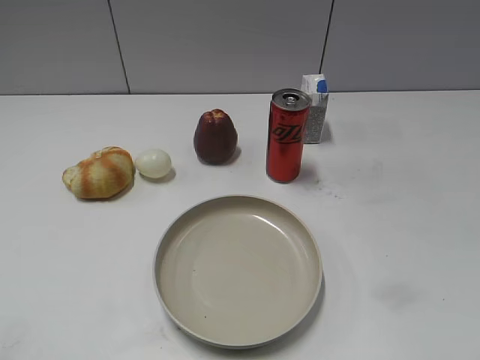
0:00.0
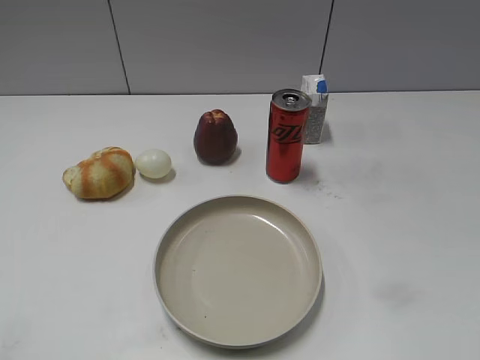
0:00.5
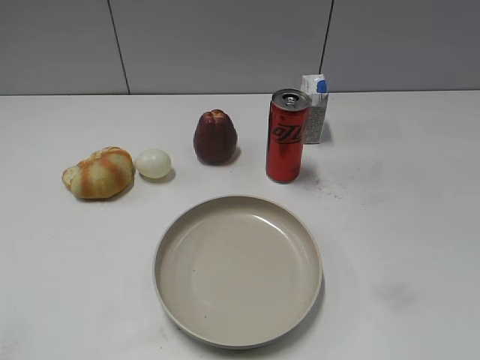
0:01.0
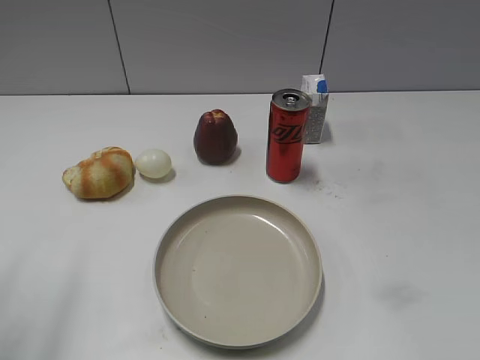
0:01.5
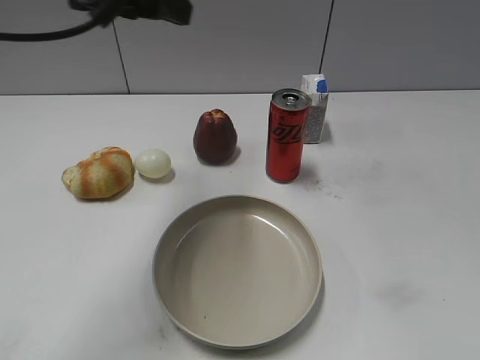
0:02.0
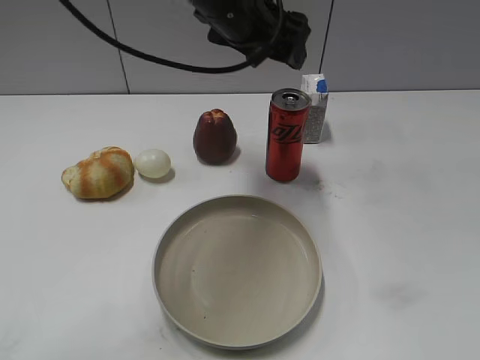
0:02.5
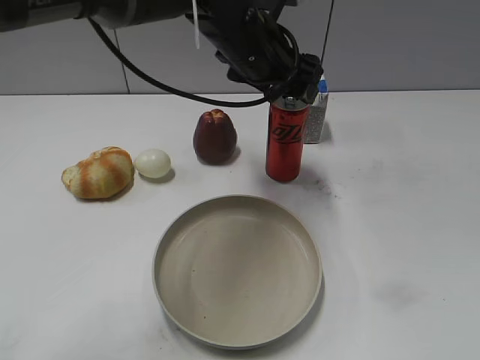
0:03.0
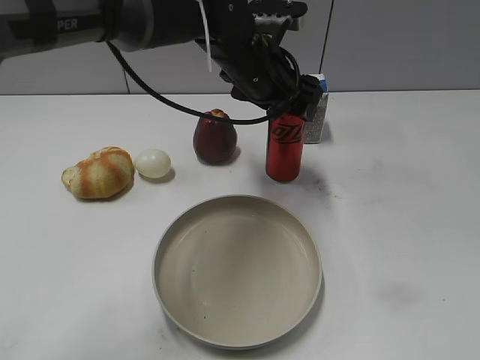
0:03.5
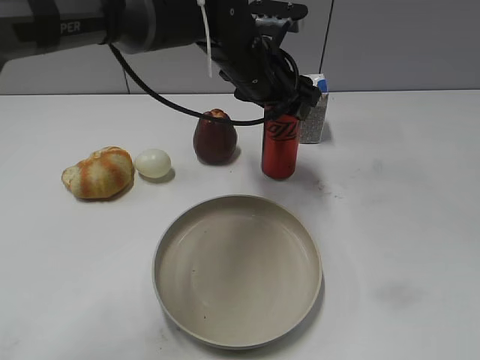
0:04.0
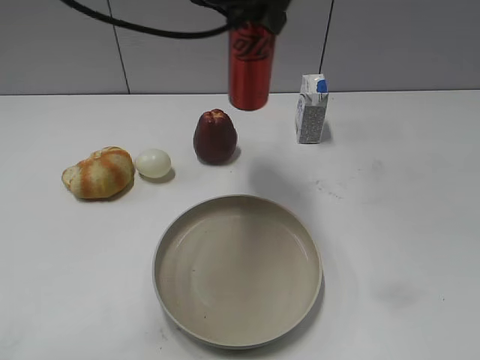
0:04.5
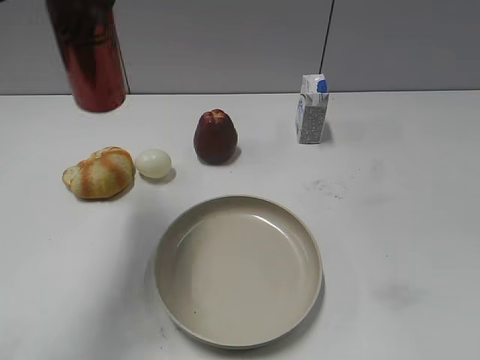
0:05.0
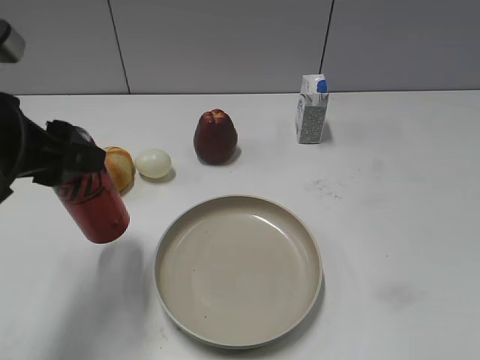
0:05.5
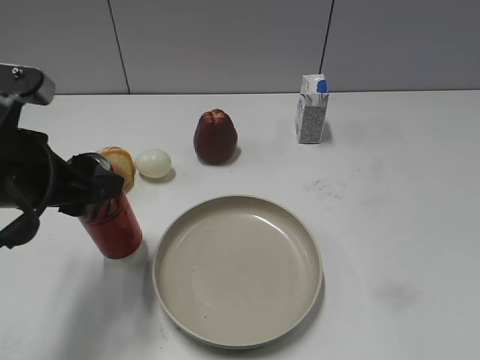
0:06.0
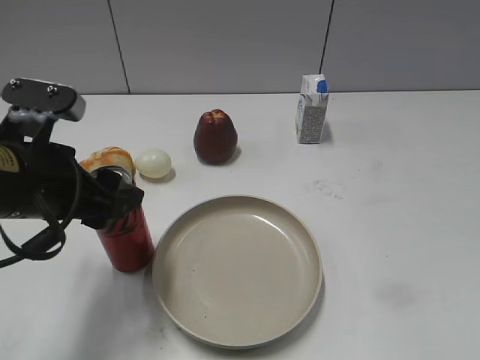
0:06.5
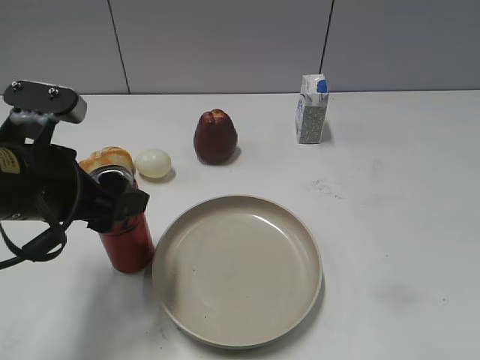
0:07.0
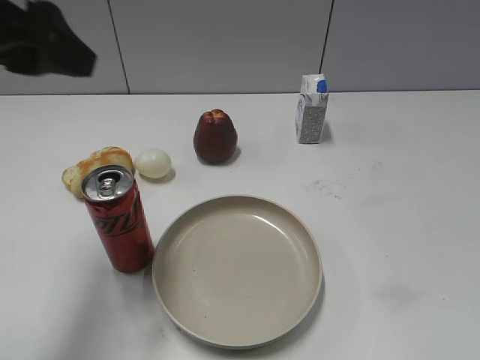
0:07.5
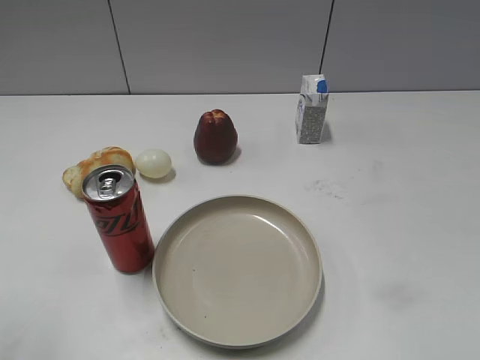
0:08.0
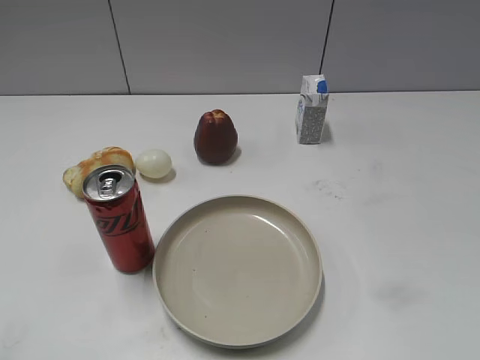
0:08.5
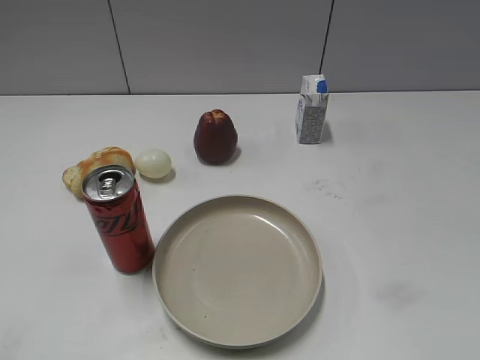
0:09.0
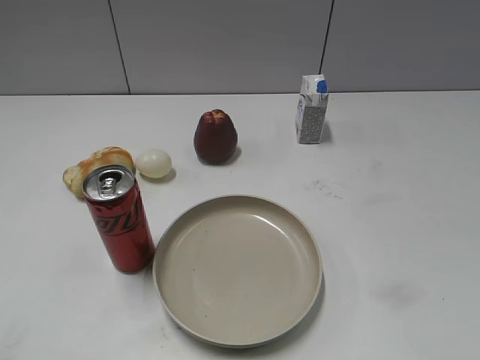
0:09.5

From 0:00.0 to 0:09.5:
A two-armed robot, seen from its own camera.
Step, from 0:00.5 to 0:03.5: Grasp the cola with left gripper.
Step, from 0:04.0 to 0:07.0: Place the cola on the table with left gripper.
From 0:02.0 to 0:04.0: The left gripper moves to the right, downward and forward, about 20 cm, and closes.
From 0:04.0 to 0:05.5: The left gripper moves to the left and backward, approximately 30 cm.
From 0:05.5 to 0:07.5: The left gripper is displaced upward by roughly 10 cm, and opens up.
From 0:07.5 to 0:09.5: The left gripper moves backward and to the left, roughly 25 cm, and closes up.

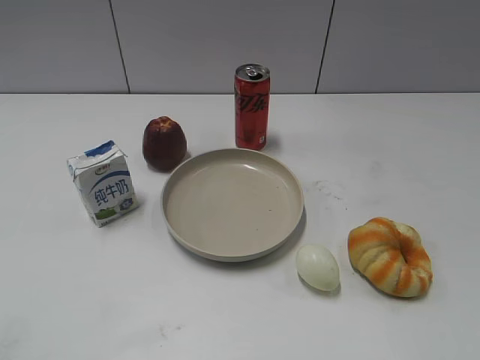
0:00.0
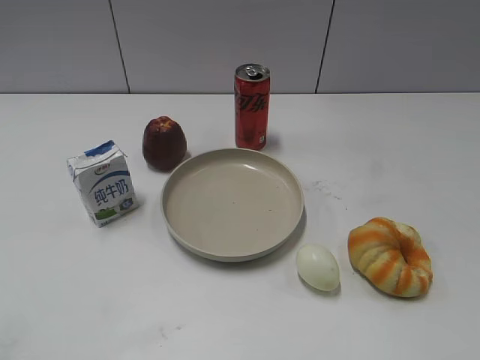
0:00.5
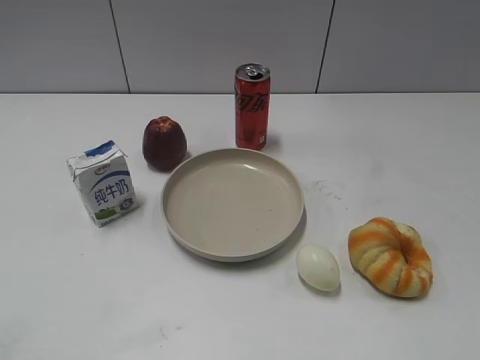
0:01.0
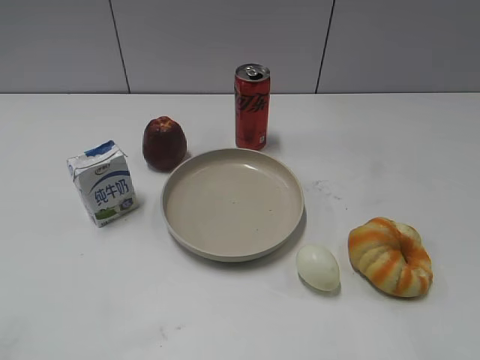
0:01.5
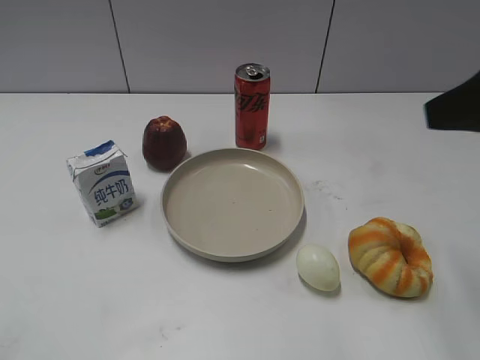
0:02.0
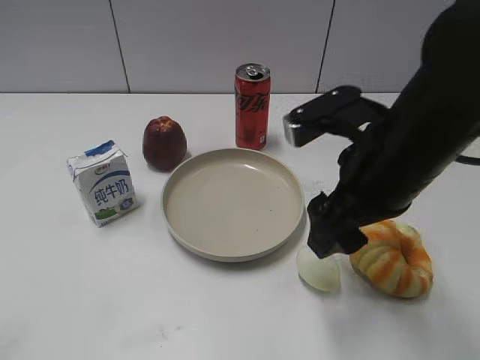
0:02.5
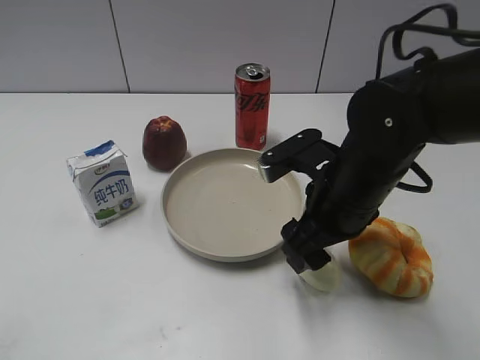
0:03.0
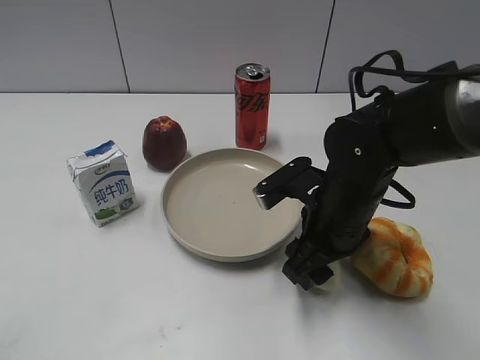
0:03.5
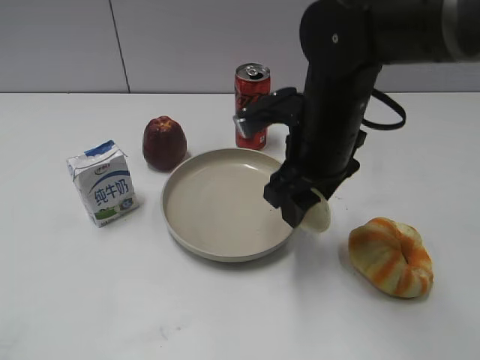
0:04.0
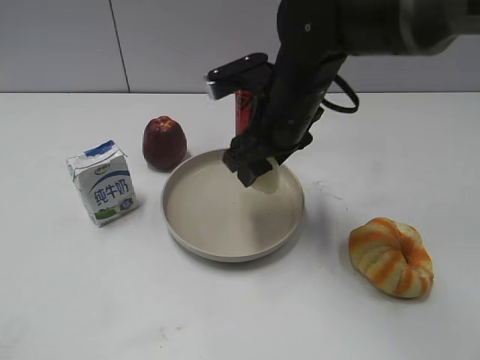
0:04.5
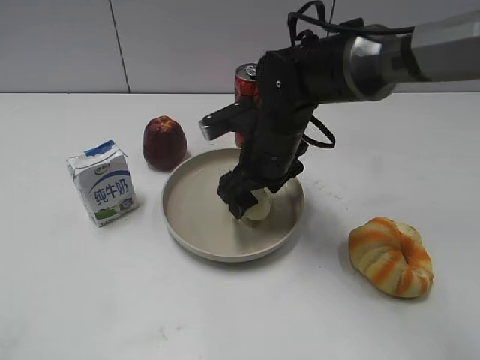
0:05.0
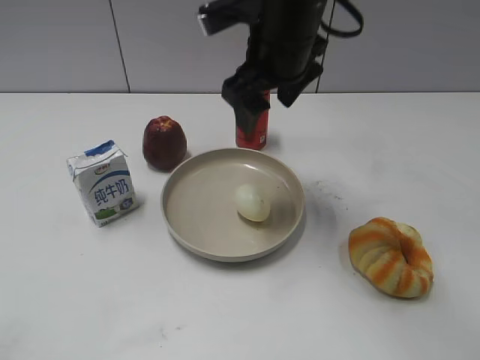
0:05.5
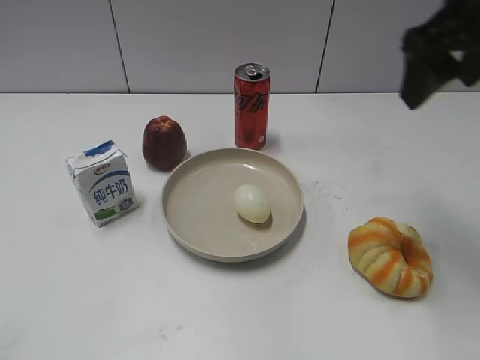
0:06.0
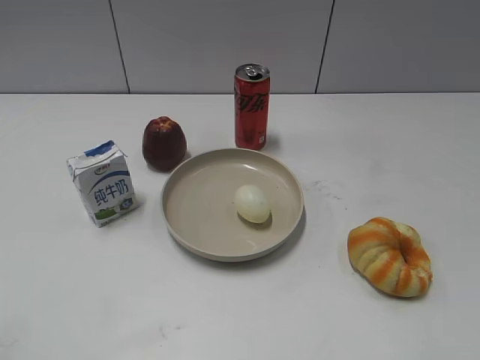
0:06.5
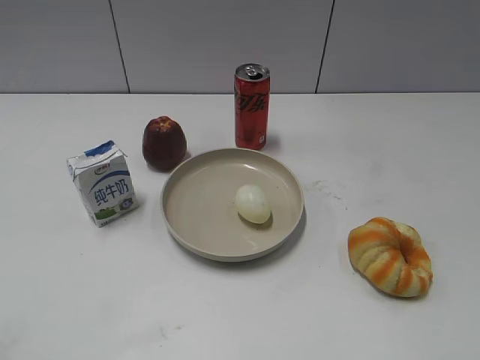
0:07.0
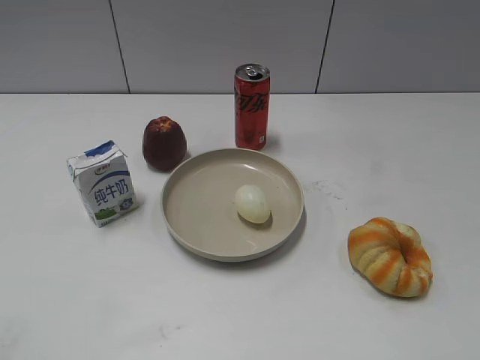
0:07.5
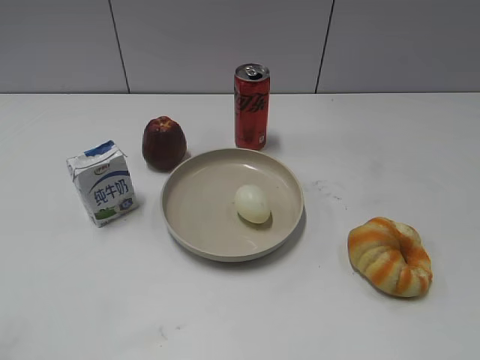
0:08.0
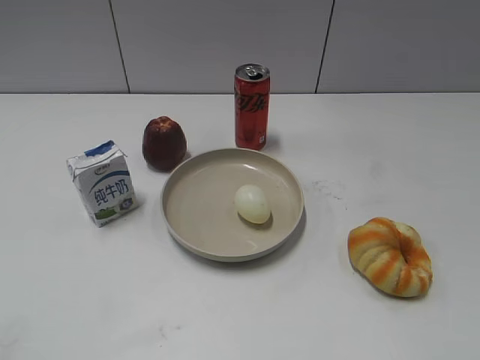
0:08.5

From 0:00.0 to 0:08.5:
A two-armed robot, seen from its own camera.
Step, from 0:01.5 to 0:03.5: Grasp the egg with right gripper.
Step, from 0:04.0 to 0:05.0: Place the egg on the plate with right gripper.
From 0:02.0 to 0:04.0: The right gripper shifts approximately 25 cm to the left, downward and forward, and closes.
From 0:04.0 to 0:06.5: The right gripper is displaced to the right, backward and upward by approximately 30 cm, and opens.

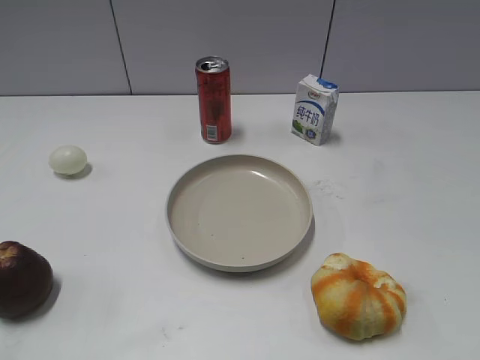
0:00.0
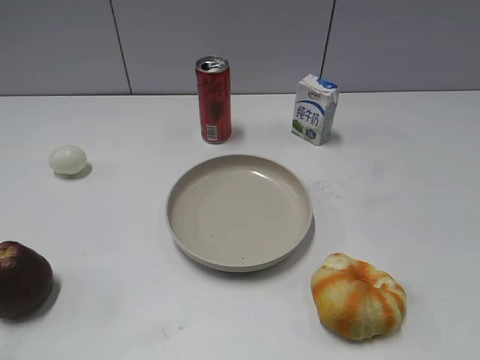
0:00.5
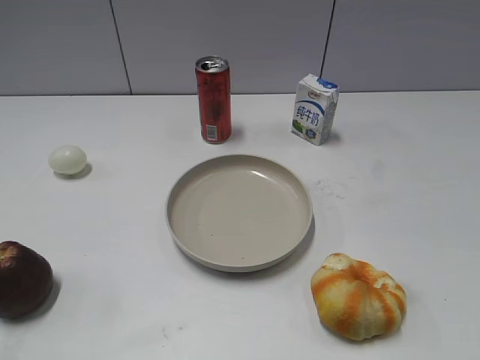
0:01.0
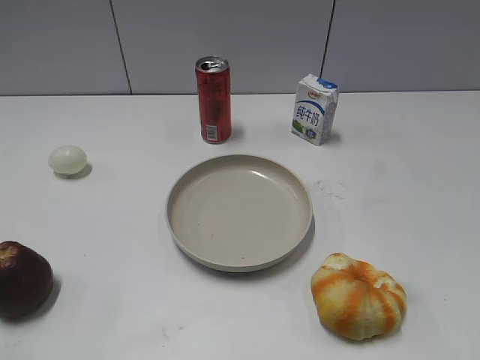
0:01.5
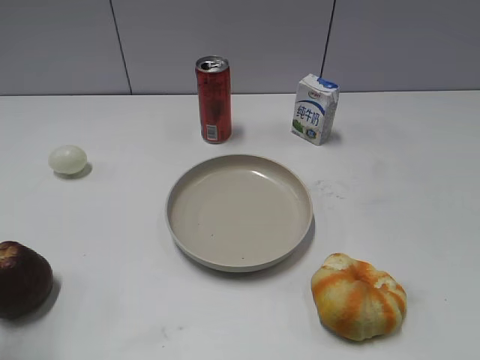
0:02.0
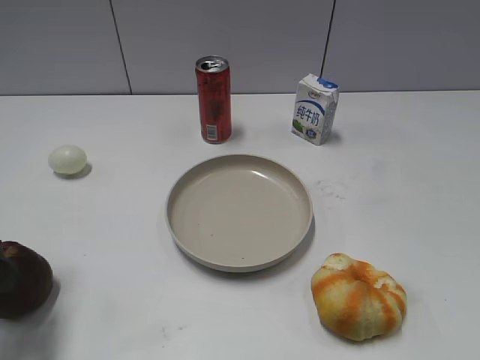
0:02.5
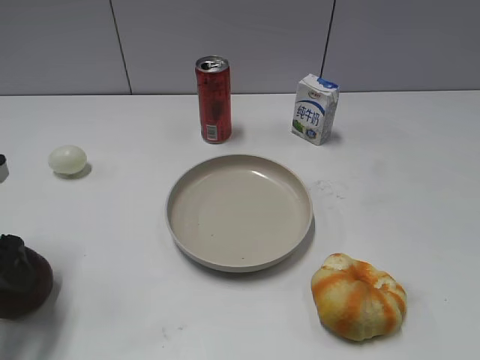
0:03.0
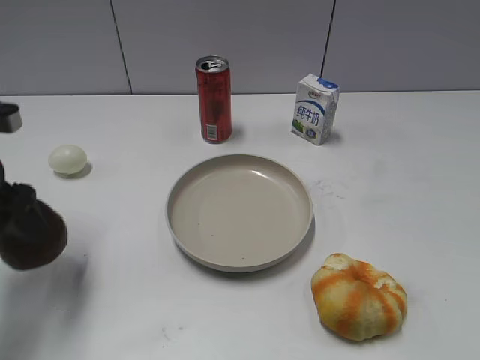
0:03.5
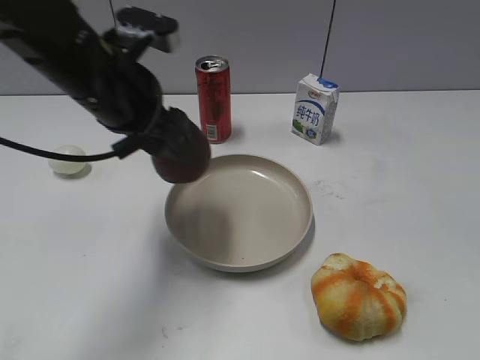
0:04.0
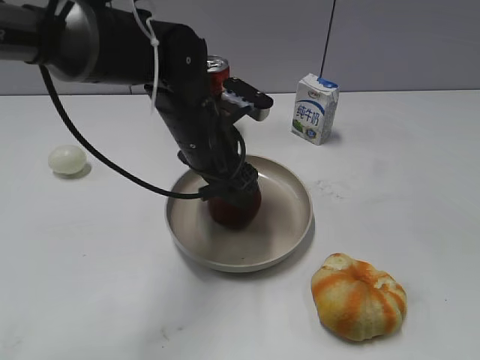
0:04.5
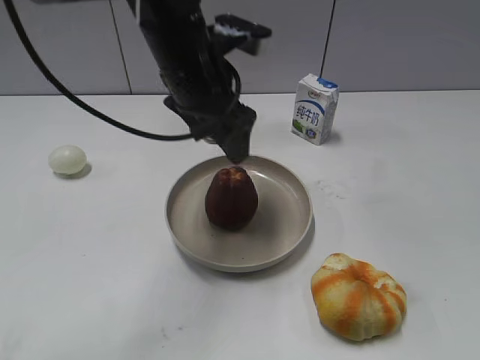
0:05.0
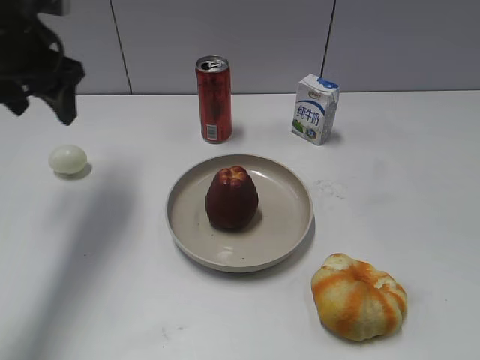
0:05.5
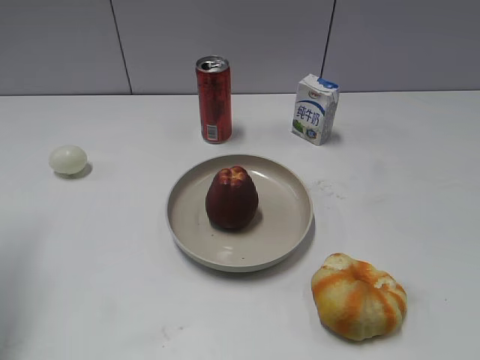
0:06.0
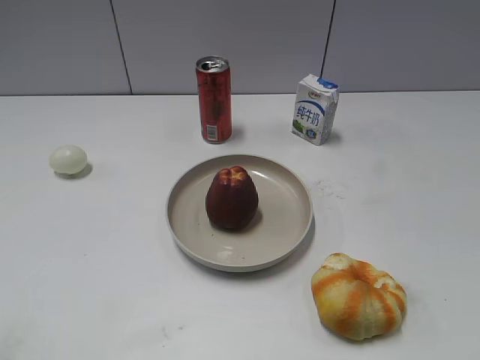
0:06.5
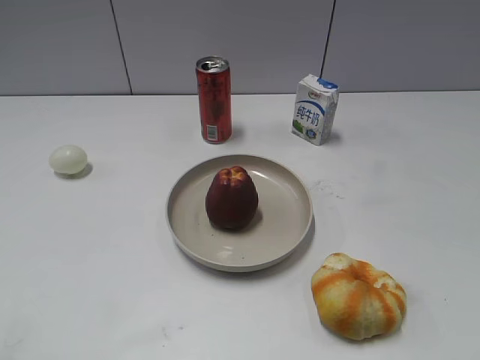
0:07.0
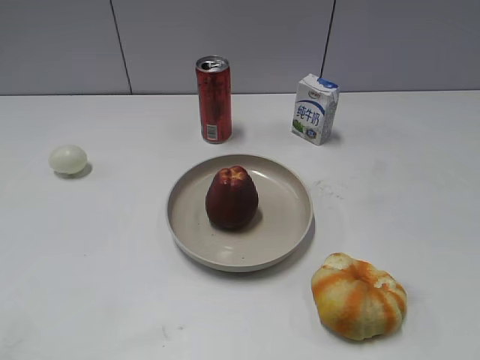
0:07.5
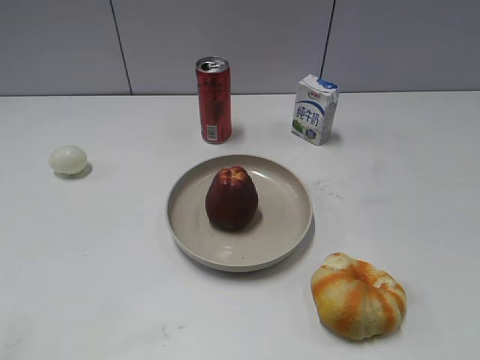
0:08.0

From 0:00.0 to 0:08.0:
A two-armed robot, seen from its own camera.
Step, from 0:03.5 to 0:04.5: Place the apple on the plate with left gripper.
From 0:02.0 to 0:04.0: The left gripper heads to the right and forward, covering approximately 25 cm, and closes its fingers.
From 0:04.0 to 0:06.0: The left gripper is displaced to the left by about 20 cm, and opens, then closes once more.
From 0:06.0 to 0:08.0: The left gripper moves backward, some 25 cm.
